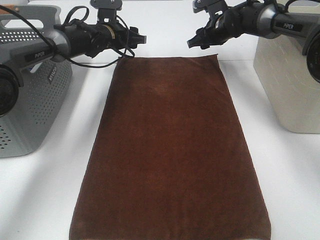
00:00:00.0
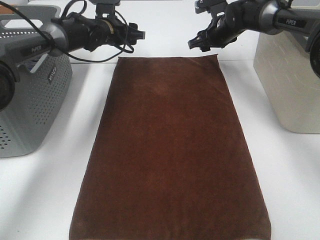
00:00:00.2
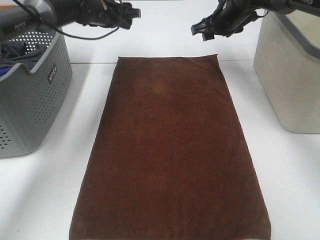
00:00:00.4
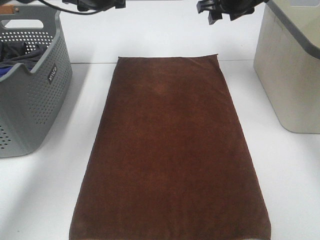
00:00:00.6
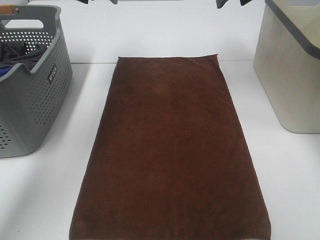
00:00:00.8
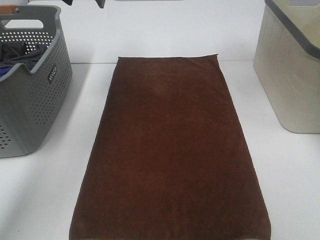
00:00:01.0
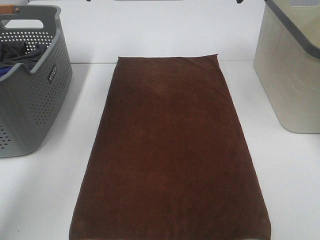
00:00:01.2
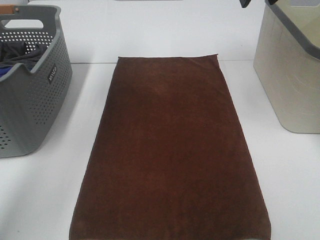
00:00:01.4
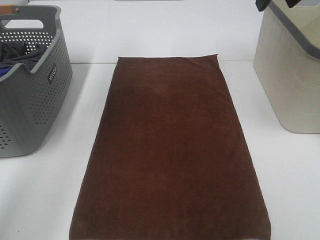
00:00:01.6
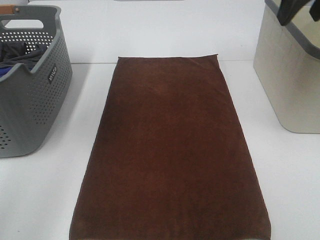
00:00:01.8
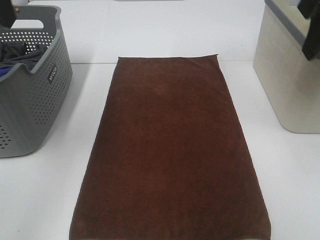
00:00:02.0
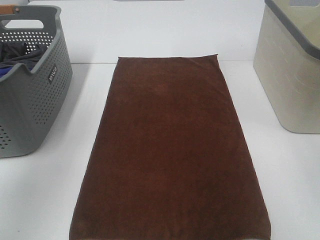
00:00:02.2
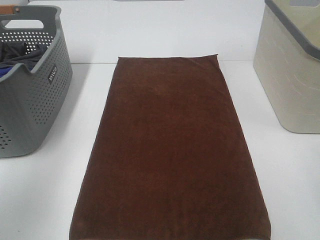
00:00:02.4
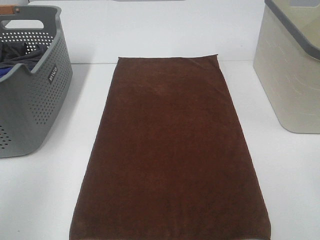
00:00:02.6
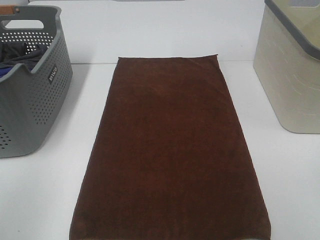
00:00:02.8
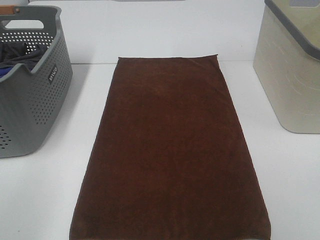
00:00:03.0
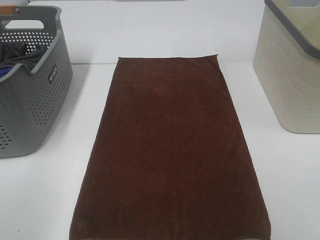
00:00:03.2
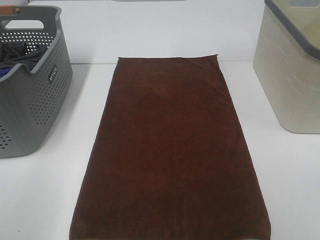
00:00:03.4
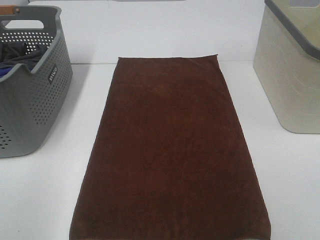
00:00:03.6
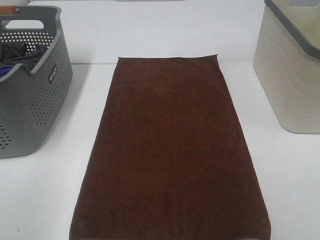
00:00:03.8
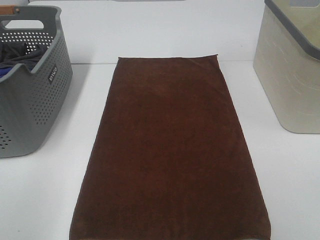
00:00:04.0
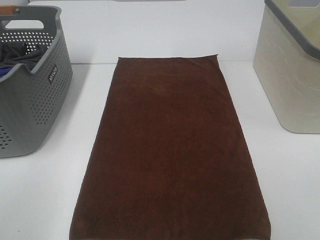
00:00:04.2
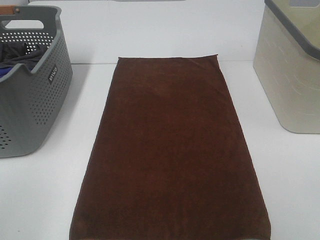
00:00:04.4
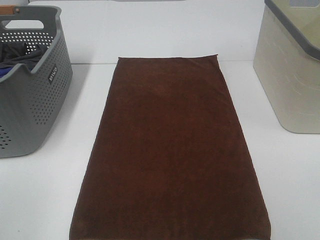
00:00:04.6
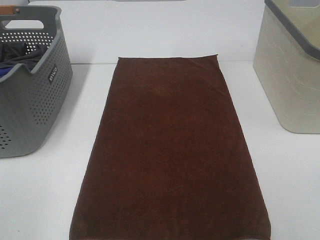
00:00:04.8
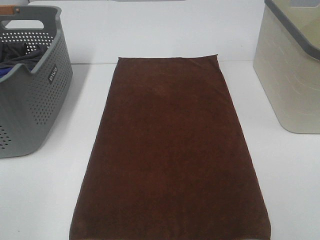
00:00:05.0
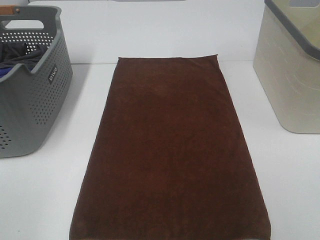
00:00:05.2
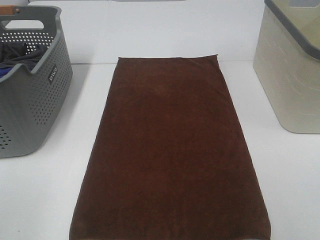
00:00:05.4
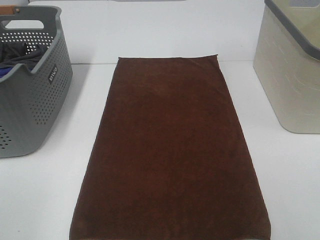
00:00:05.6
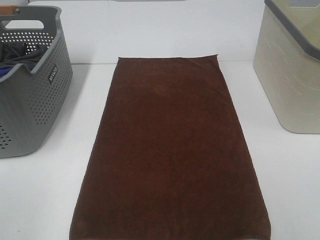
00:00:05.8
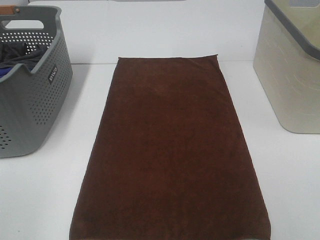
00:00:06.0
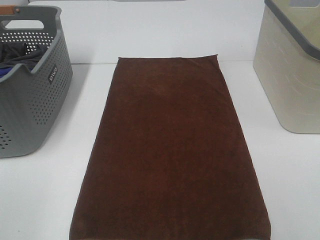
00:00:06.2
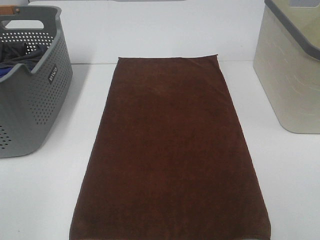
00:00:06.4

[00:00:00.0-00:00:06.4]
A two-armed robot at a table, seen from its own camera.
Task of the whole recording: Remove the towel and place it.
00:00:00.0 to 00:00:01.6: Both grippers travel together upward and backward, roughly 30 cm.
00:00:01.6 to 00:00:03.2: The left gripper travels backward and downward by some 40 cm.

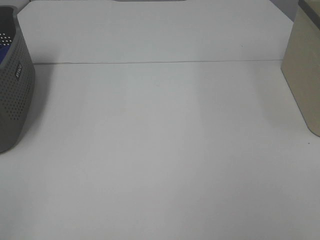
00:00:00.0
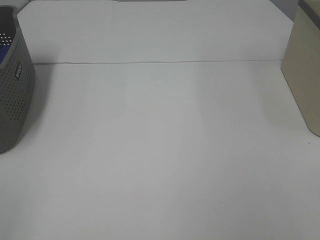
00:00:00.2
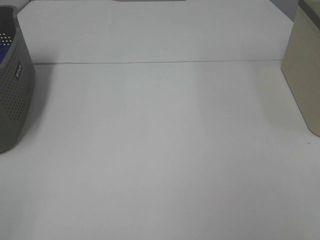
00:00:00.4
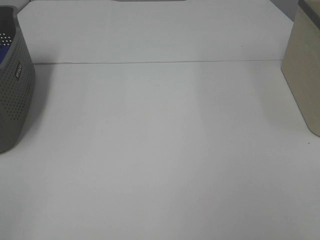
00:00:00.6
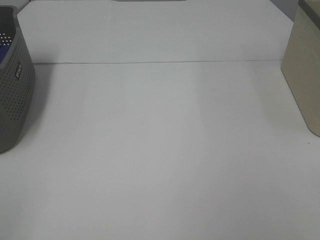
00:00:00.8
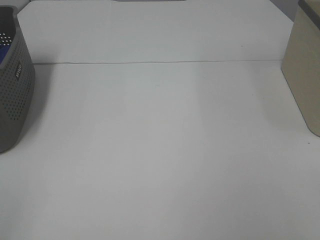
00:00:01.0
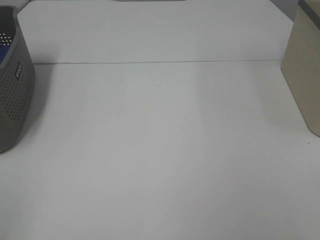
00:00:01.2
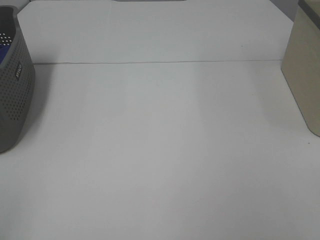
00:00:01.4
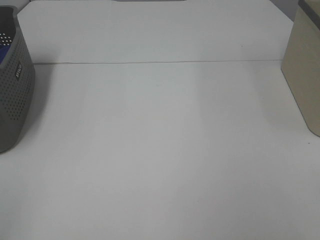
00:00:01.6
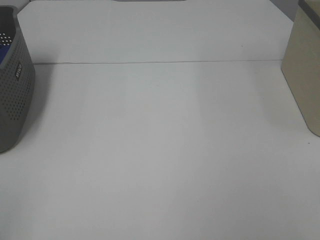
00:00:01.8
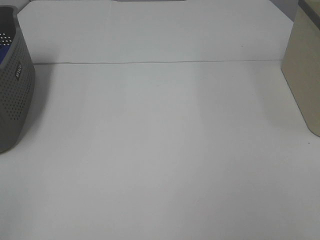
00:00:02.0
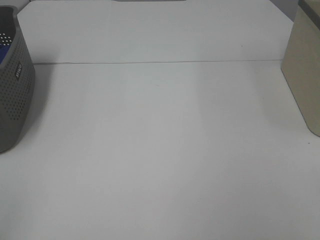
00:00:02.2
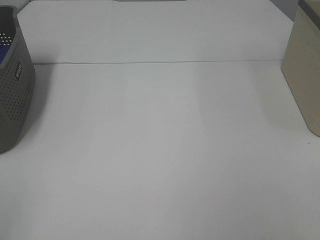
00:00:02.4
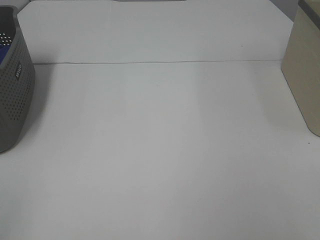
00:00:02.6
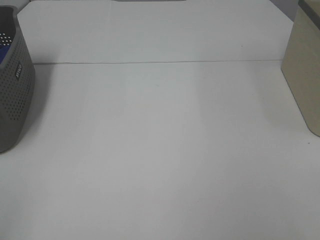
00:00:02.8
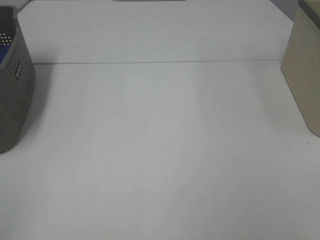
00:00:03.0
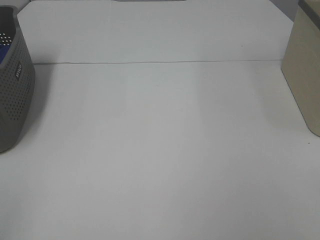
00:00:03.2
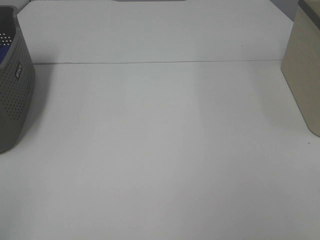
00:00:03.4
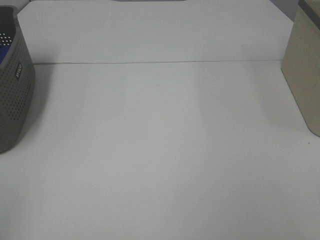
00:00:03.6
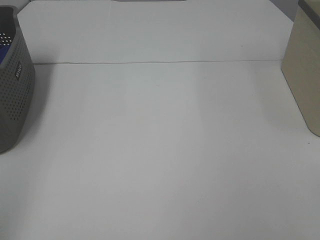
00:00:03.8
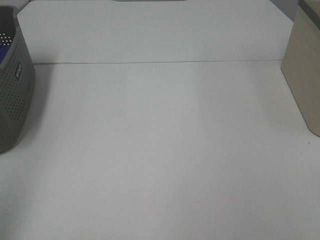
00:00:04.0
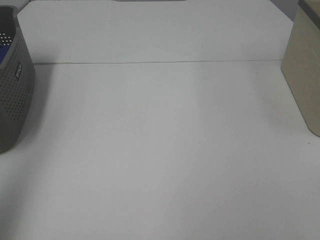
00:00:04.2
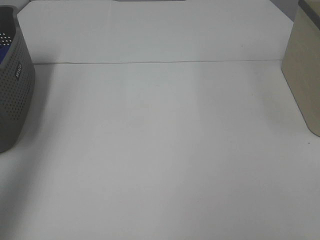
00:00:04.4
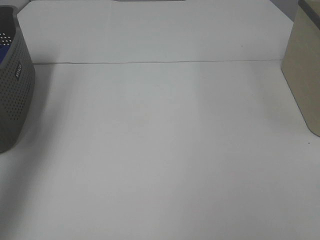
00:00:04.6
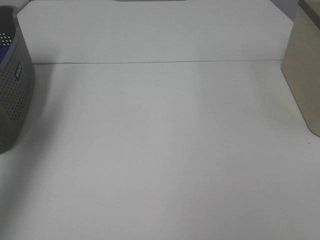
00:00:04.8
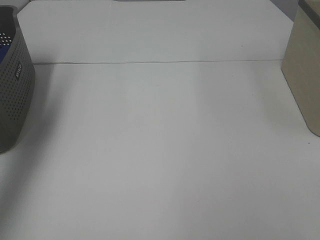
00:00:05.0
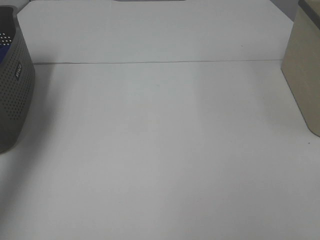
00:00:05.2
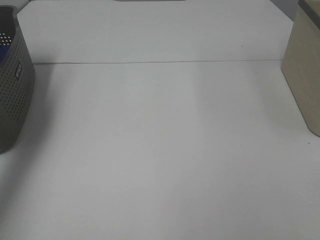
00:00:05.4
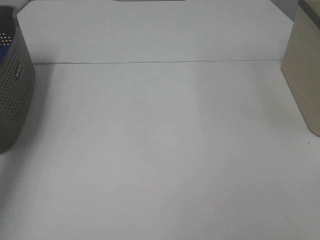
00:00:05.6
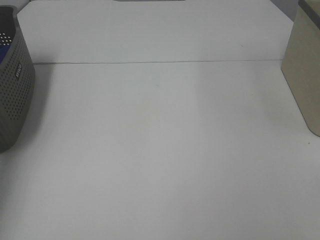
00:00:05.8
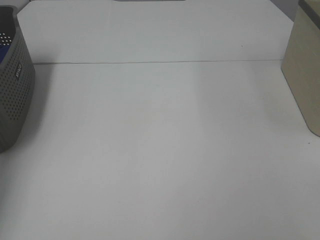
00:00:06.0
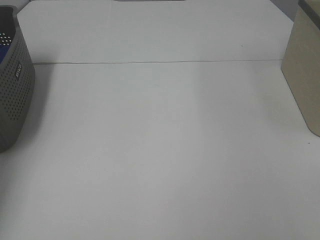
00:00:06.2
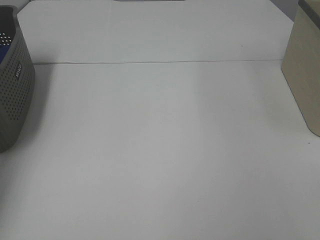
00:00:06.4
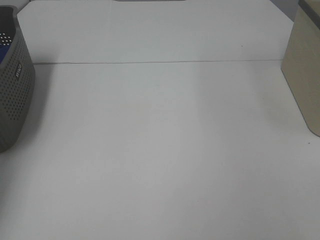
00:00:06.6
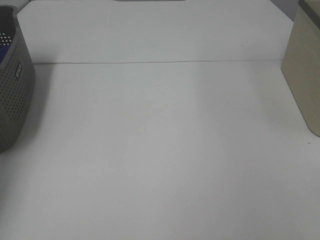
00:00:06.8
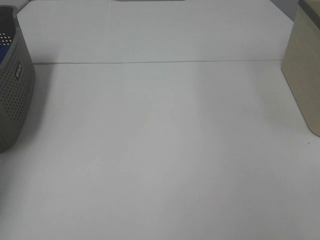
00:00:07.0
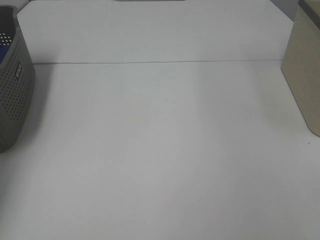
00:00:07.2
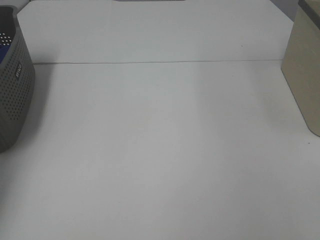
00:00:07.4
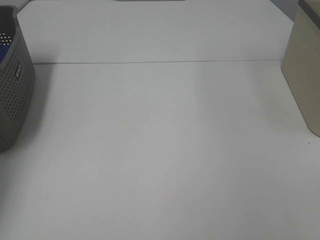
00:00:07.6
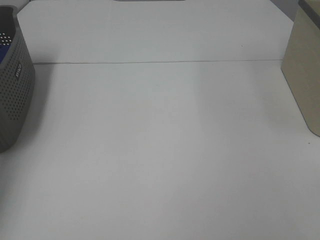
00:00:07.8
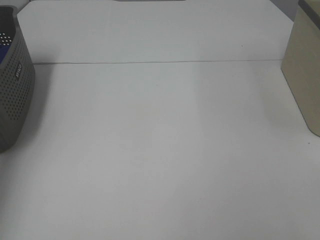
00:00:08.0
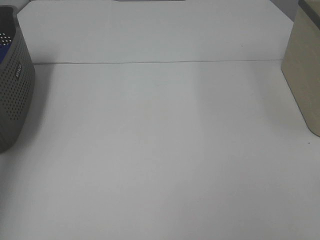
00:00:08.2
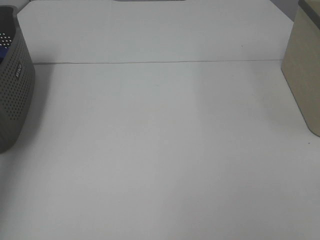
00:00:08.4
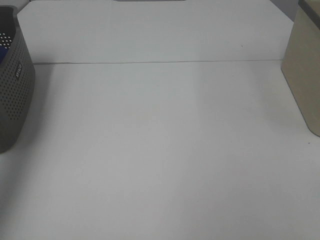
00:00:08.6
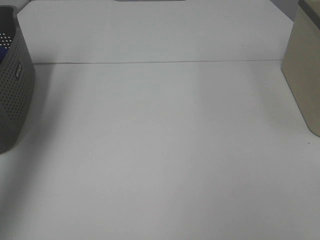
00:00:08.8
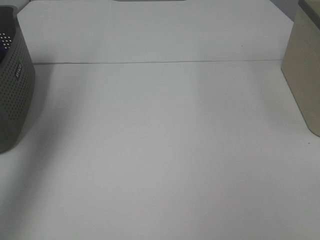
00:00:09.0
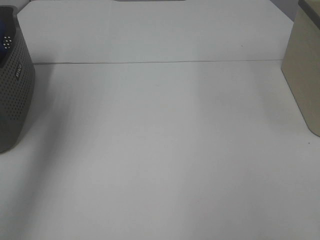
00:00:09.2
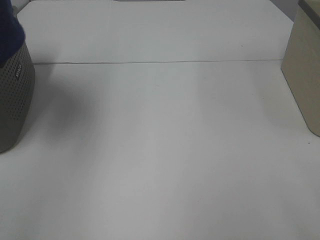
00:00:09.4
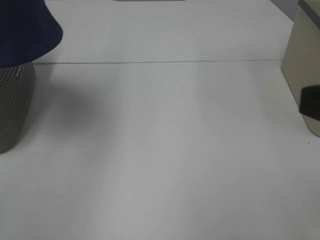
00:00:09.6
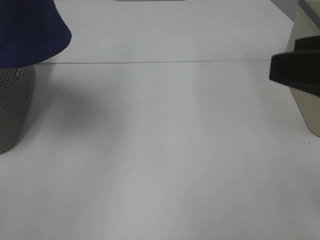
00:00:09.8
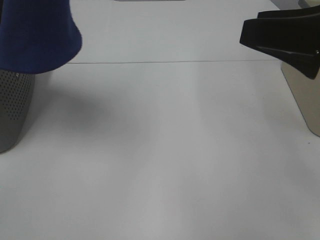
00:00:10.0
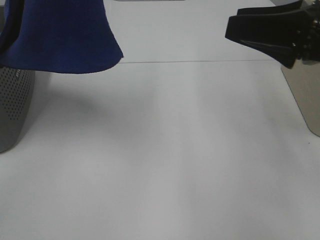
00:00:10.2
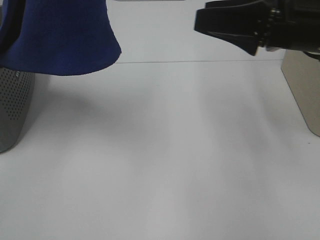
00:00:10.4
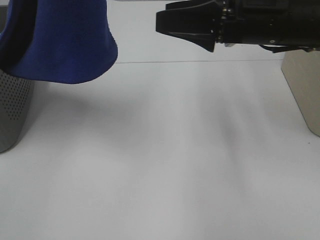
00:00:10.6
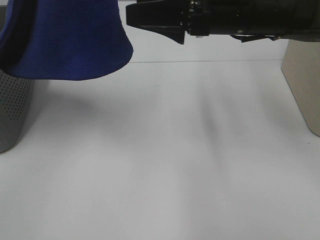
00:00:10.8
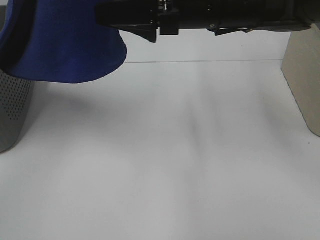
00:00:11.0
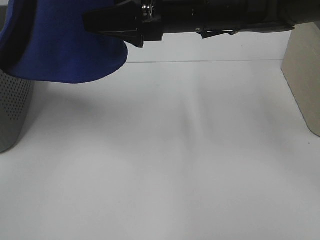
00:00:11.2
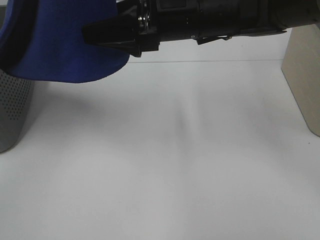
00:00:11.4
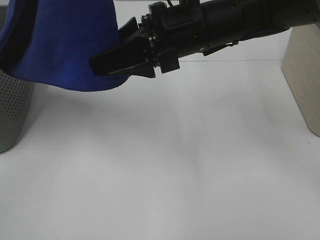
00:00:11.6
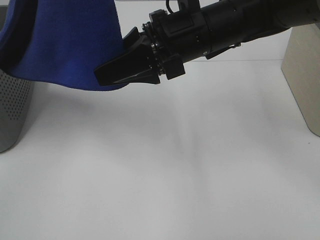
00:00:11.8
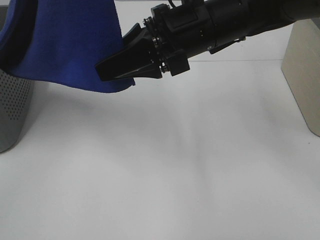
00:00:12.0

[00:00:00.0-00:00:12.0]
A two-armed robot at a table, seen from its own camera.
Task of the whole recording: Remove the towel and place it.
00:00:00.0 to 00:00:03.0: Both grippers stay put.
00:00:03.0 to 00:00:04.4: The left gripper goes about 25 cm forward and upward.
00:00:04.4 to 00:00:06.0: The left gripper moves forward and downward, approximately 30 cm.
00:00:07.6 to 00:00:09.0: The left gripper travels upward by some 30 cm.
00:00:09.0 to 00:00:10.4: The left gripper moves to the right, roughly 20 cm. The right gripper travels forward by approximately 25 cm.
00:00:10.4 to 00:00:12.0: The right gripper moves to the left, some 10 cm, and closes its fingers.

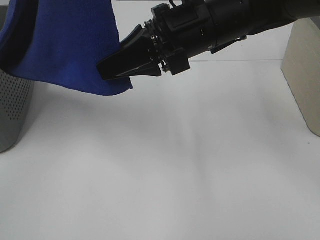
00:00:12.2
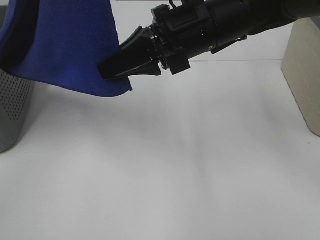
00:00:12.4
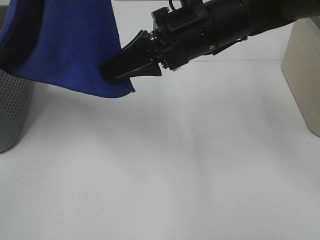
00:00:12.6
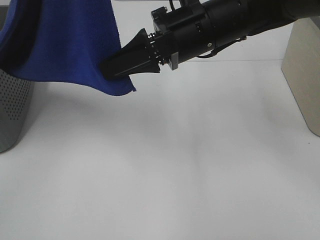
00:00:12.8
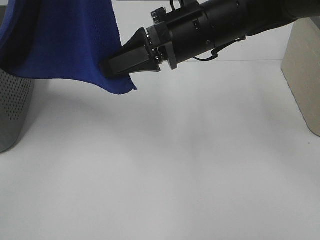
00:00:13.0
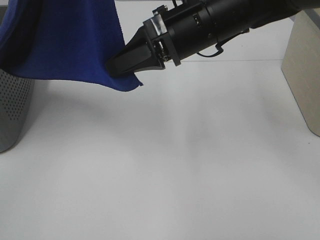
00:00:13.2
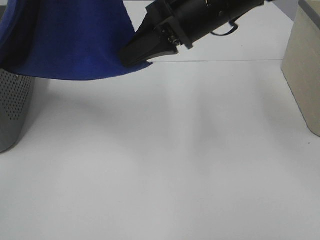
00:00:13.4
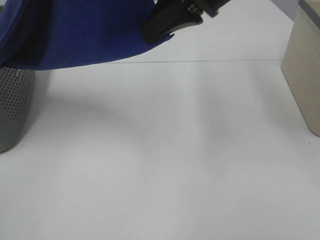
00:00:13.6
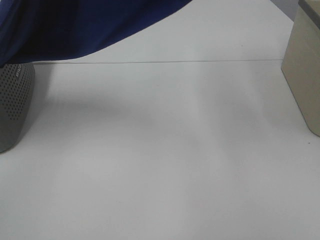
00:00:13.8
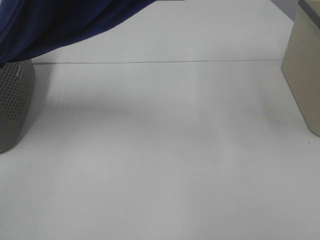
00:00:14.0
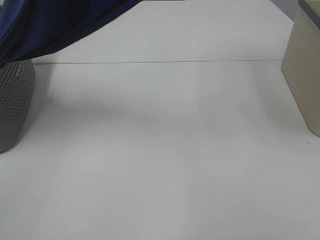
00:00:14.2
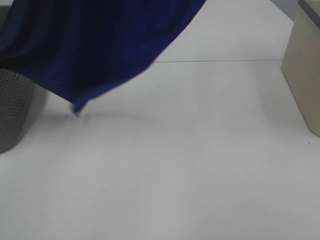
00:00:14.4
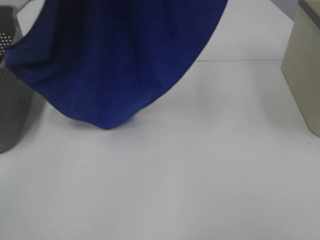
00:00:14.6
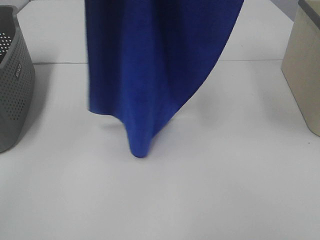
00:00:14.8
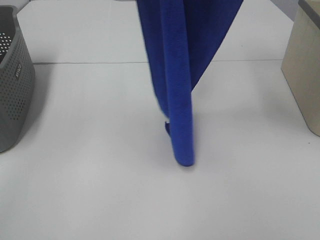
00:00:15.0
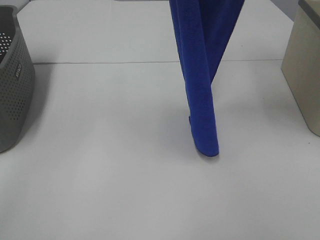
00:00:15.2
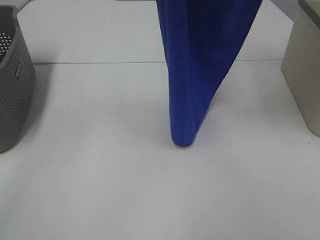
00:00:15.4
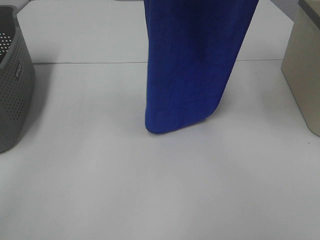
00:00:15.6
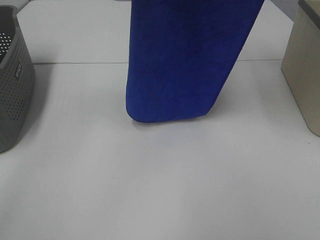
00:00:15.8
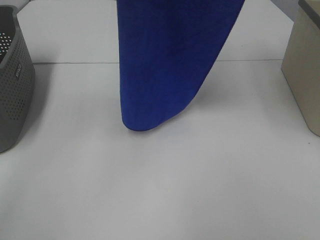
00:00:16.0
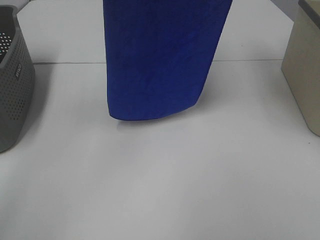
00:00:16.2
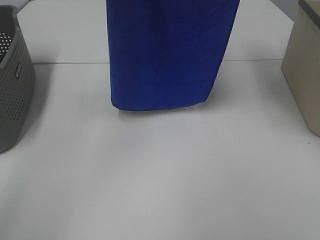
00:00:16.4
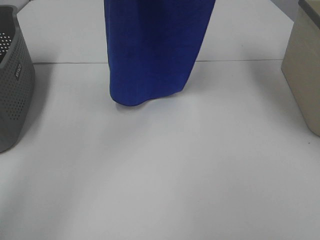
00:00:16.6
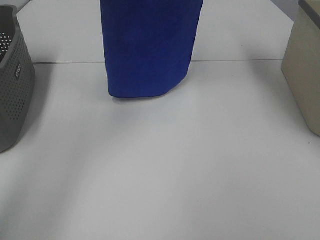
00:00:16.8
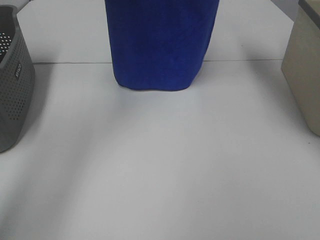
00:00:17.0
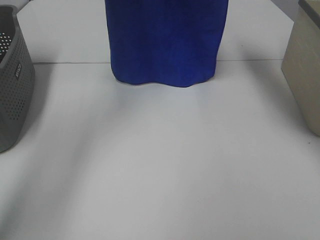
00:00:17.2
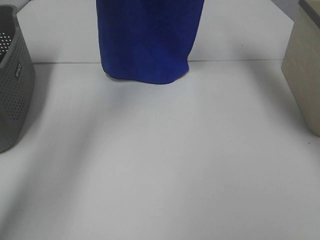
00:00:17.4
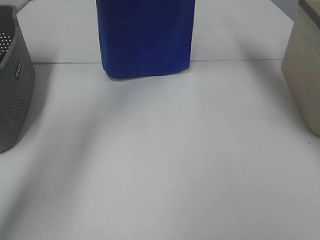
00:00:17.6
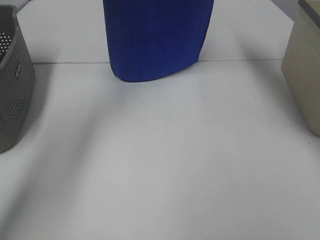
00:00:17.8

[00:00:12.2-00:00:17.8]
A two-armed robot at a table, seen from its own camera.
Task of the whole recording: Remove the towel and place it.
00:00:12.2 to 00:00:13.6: The right gripper goes approximately 10 cm upward.
00:00:13.6 to 00:00:15.0: The left gripper changes place by roughly 5 cm, while the right gripper moves upward and to the right, some 20 cm.
00:00:15.0 to 00:00:16.4: The right gripper moves forward, approximately 5 cm. The left gripper moves forward, approximately 10 cm.
00:00:16.4 to 00:00:17.8: The left gripper heads forward and downward, covering roughly 15 cm. Meanwhile the right gripper shifts about 10 cm forward.
